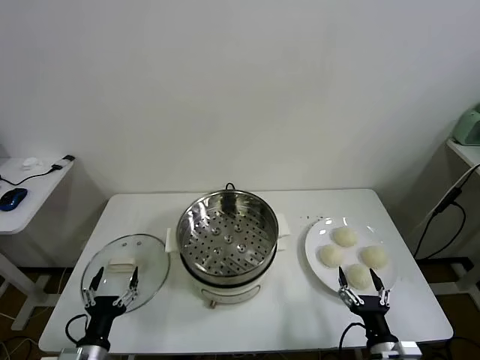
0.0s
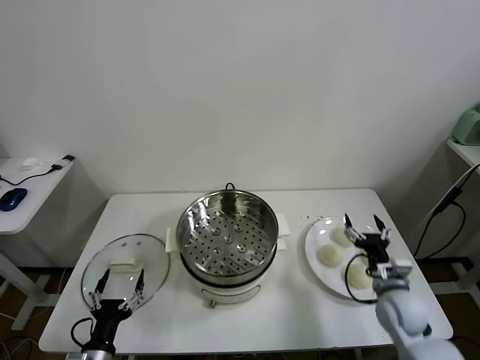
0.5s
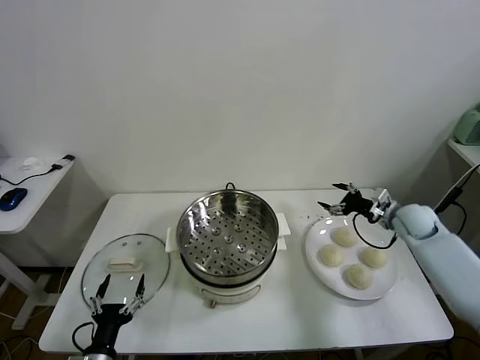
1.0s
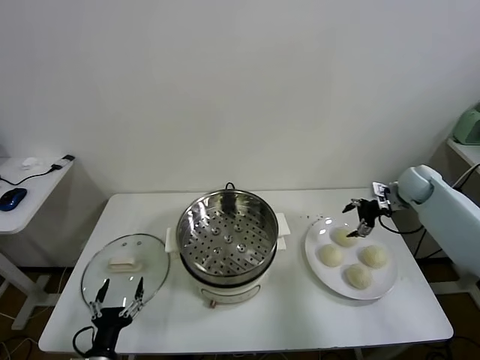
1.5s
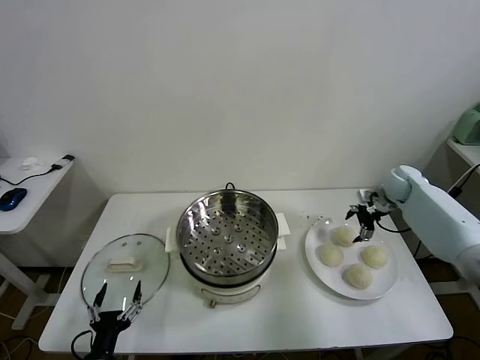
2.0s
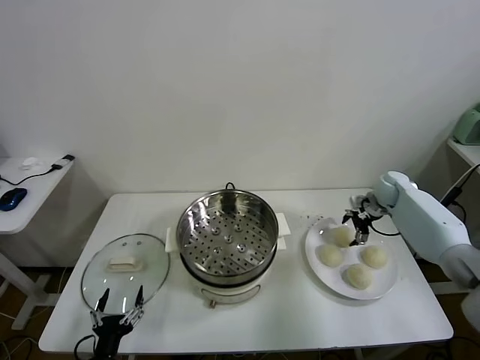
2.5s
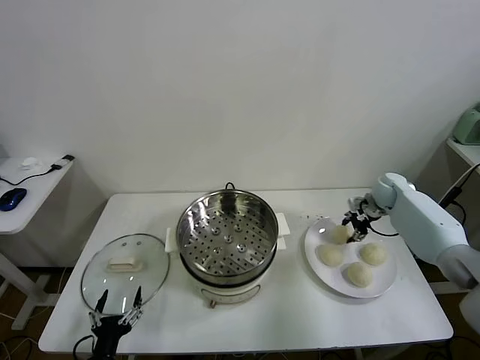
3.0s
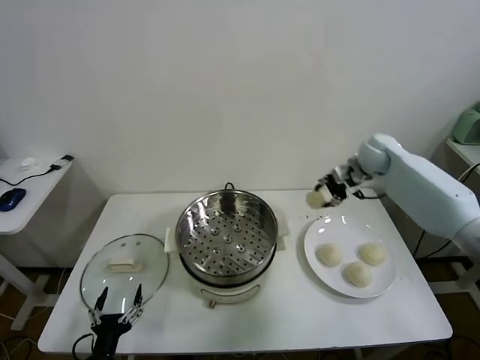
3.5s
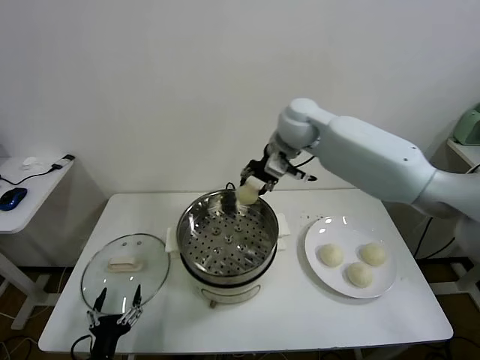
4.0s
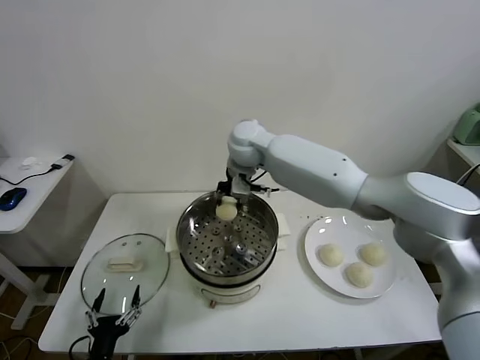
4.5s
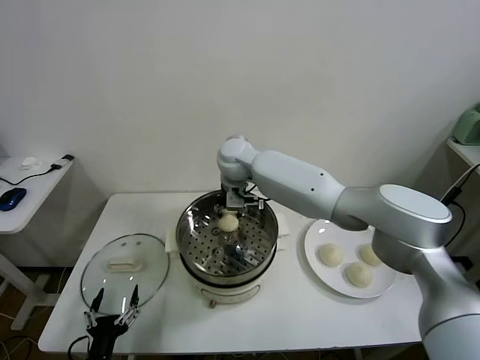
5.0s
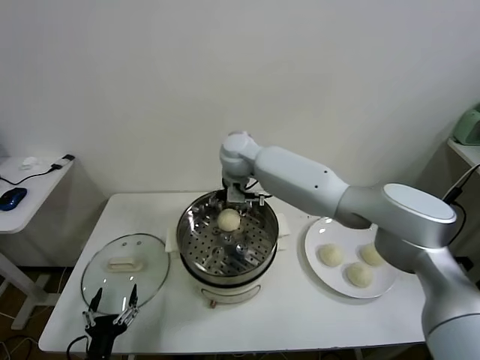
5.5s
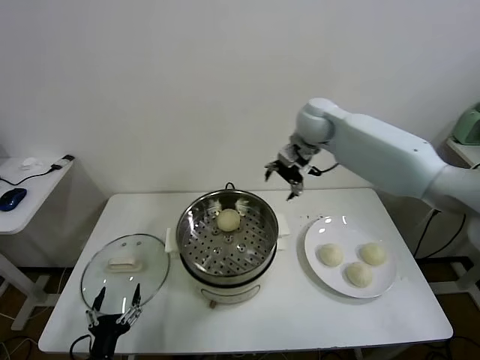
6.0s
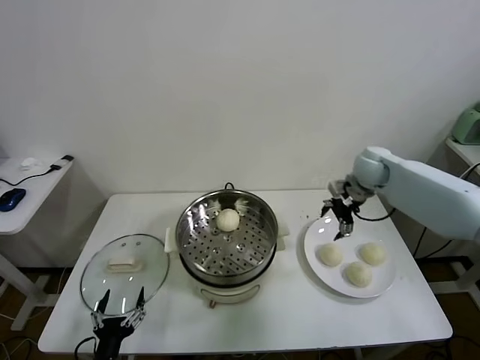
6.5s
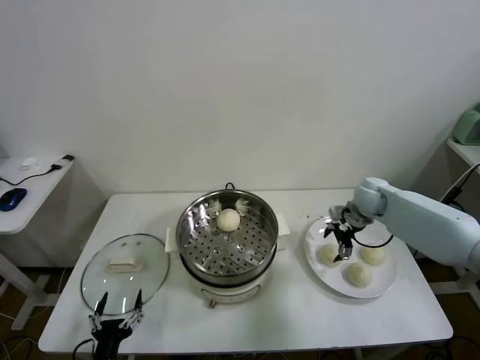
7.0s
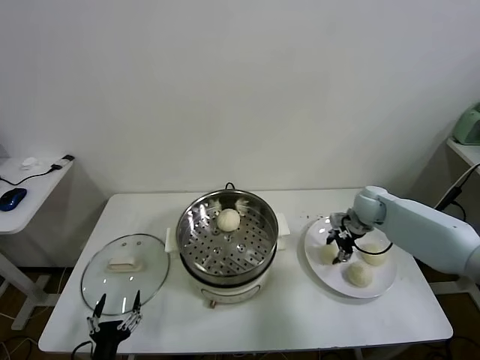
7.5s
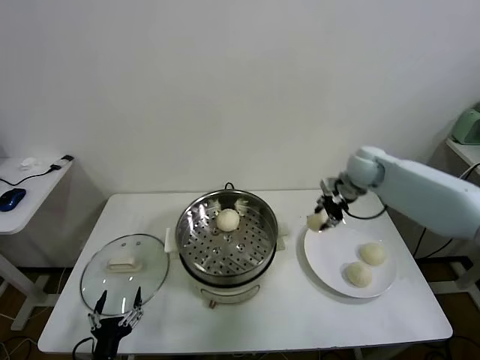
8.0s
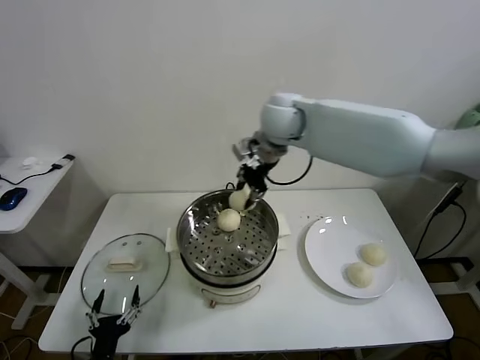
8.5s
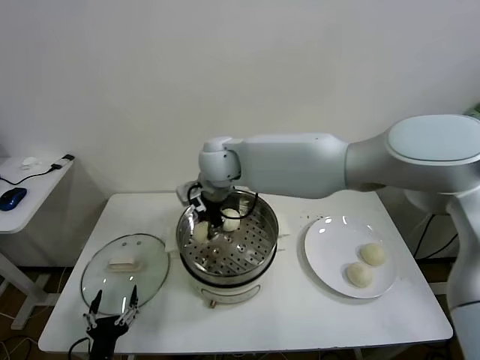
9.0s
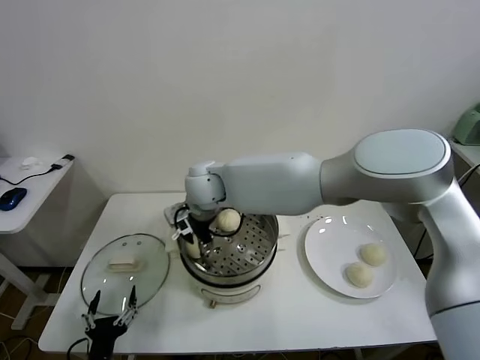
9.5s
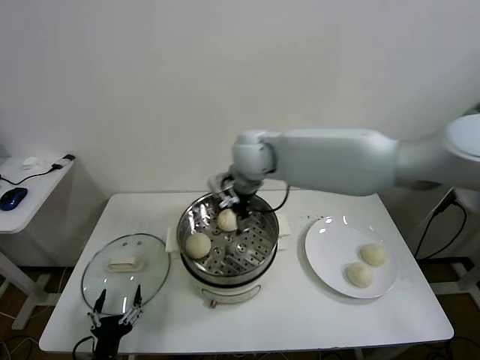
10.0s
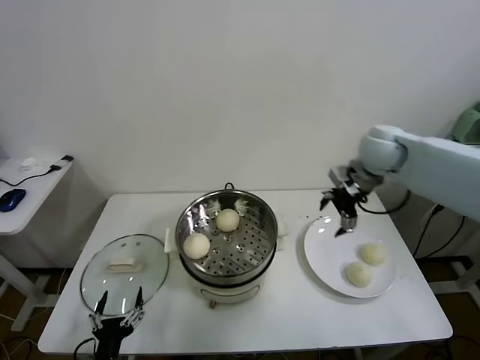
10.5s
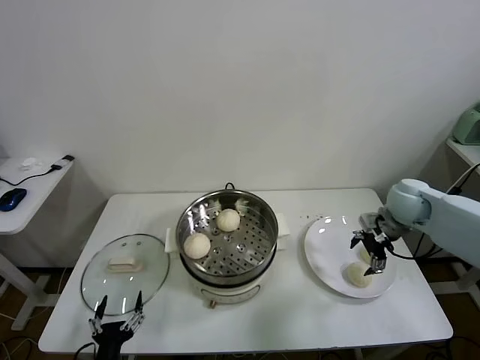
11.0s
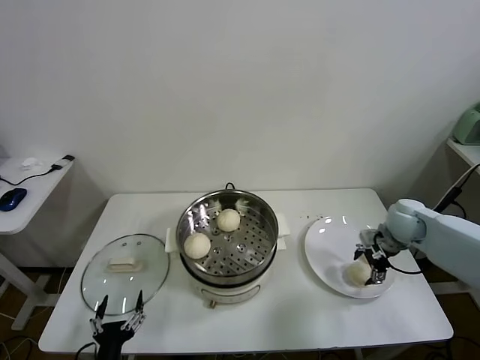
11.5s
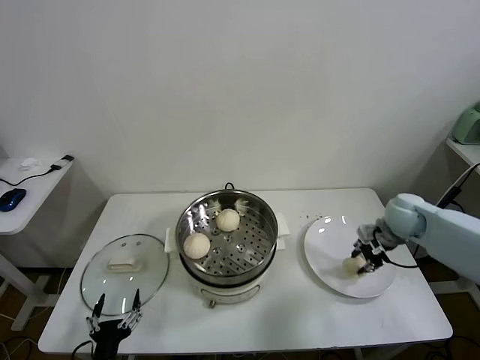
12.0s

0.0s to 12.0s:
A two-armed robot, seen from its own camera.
Task of the whole recording: take steamed baozi put them in steamer.
Step, 0.0s to 3.0s: Grasp the baozi in the plate with right gripper.
Step, 3.5s to 5.5s: Place the baozi on the steamer with right gripper.
Step, 6.0s to 7.5s: Grasp the baozi in the plate with right gripper.
Step, 8.0s to 9.5s: Place the baozi on the steamer with right gripper.
Step, 10.0s to 11.5s: Grasp the baozi in the plate with right gripper.
2.0s to 4.0s: The right gripper is displaced to the left and upward by about 40 cm, and closes its fingers.
4.0s to 6.0s: The right gripper heads to the right, covering approximately 10 cm, and opens.
6.0s to 8.0s: The right gripper shifts about 5 cm to the right, goes downward and returns, some 20 cm each way, and closes its fingers.
8.0s to 10.0s: The right gripper is displaced to the left by roughly 20 cm, and opens up.
10.0s to 12.0s: The right gripper shifts about 35 cm to the right and downward, and closes its fingers.

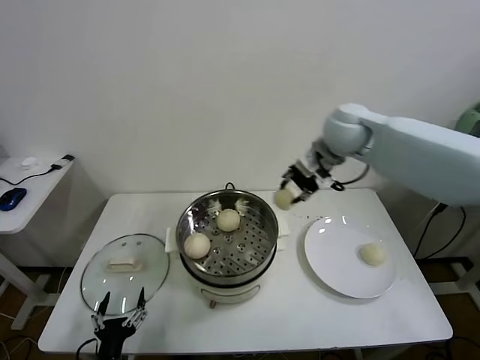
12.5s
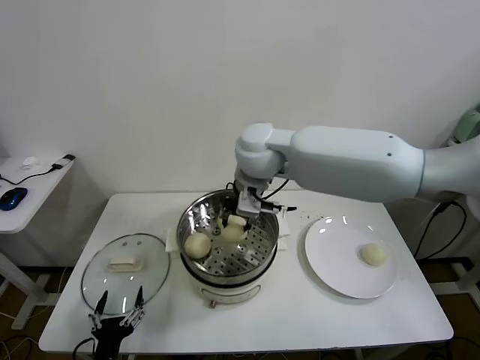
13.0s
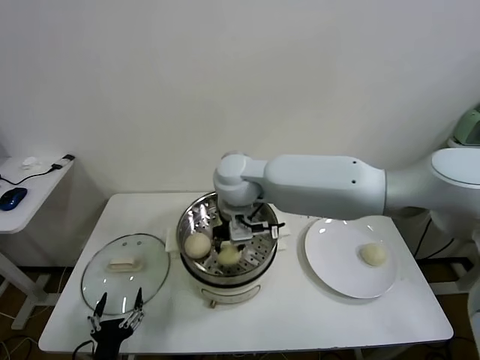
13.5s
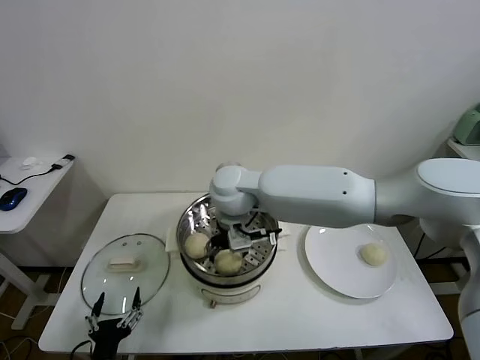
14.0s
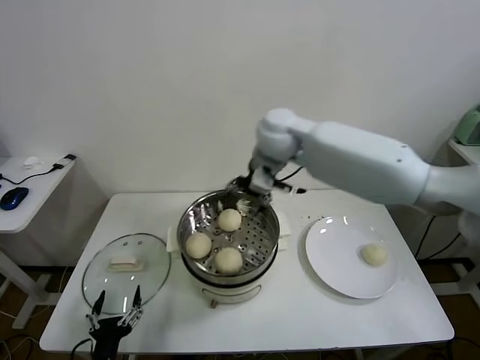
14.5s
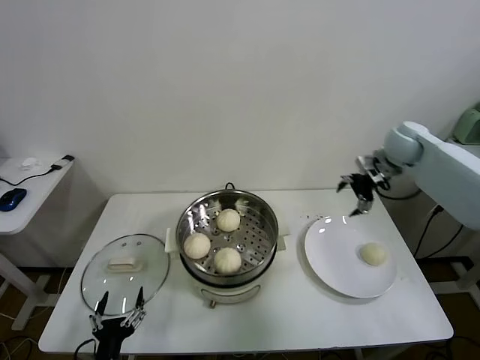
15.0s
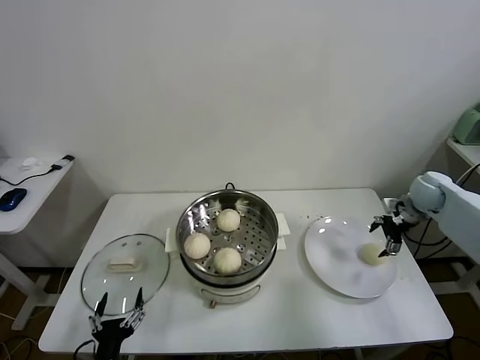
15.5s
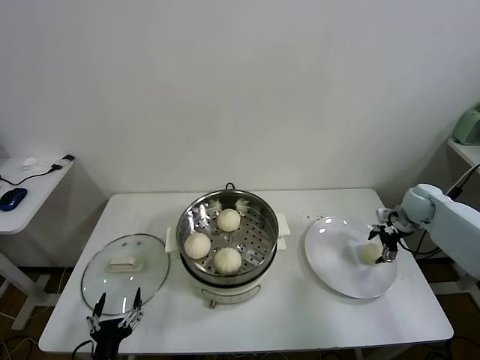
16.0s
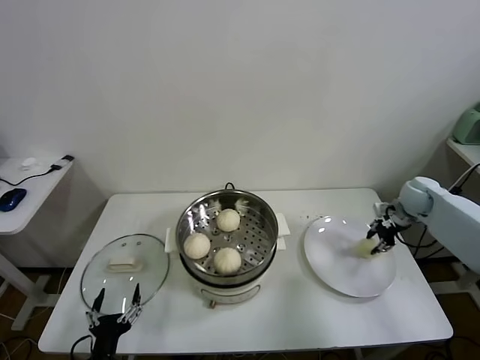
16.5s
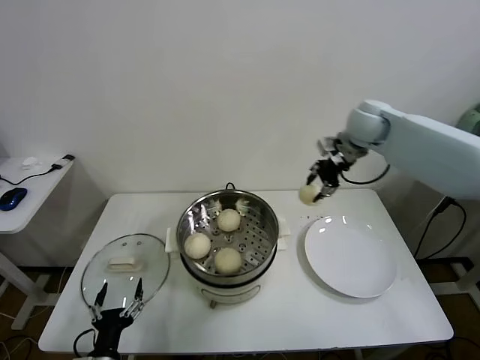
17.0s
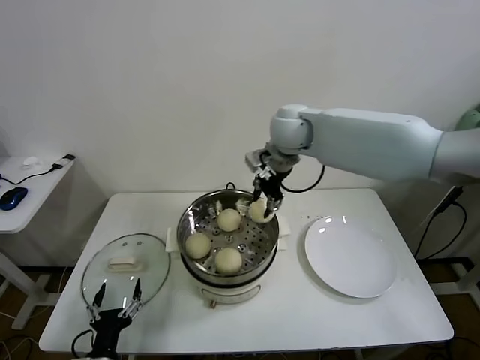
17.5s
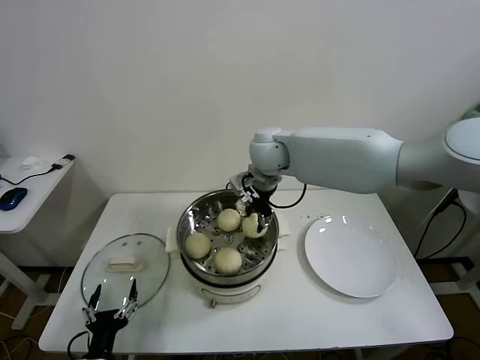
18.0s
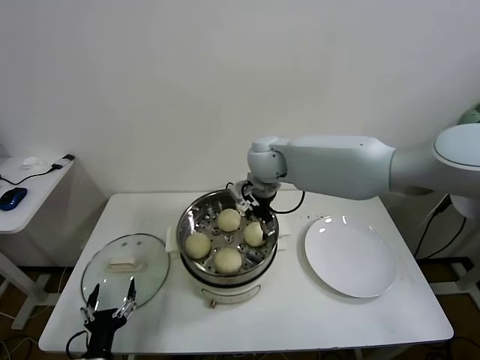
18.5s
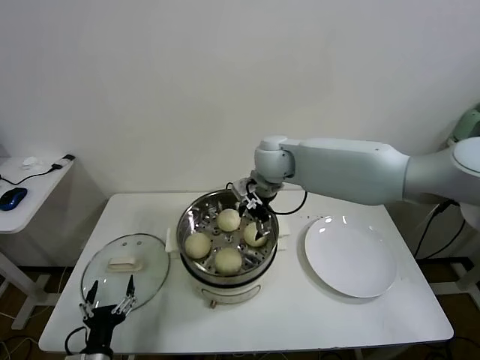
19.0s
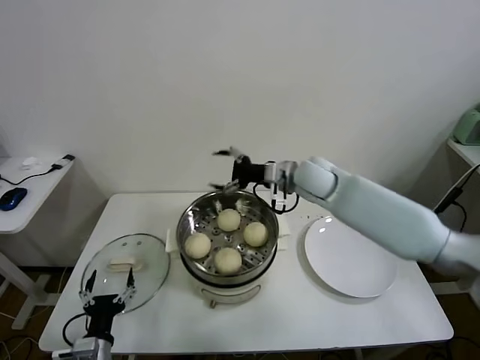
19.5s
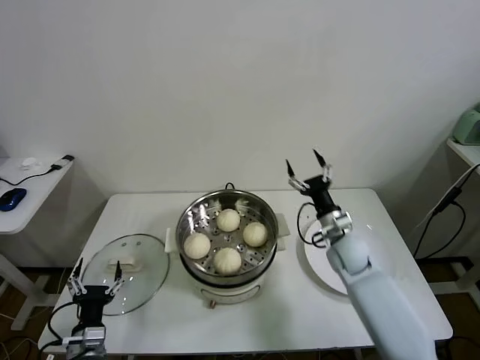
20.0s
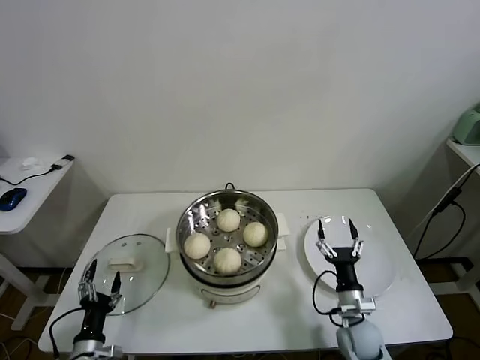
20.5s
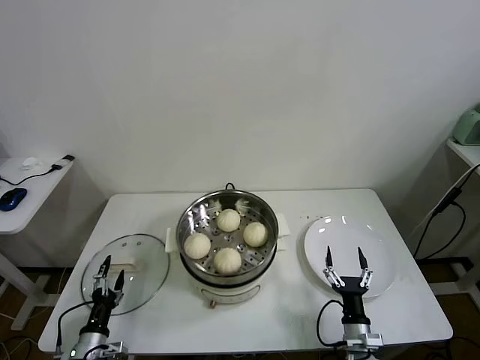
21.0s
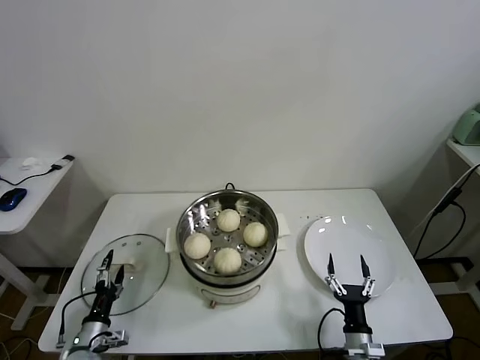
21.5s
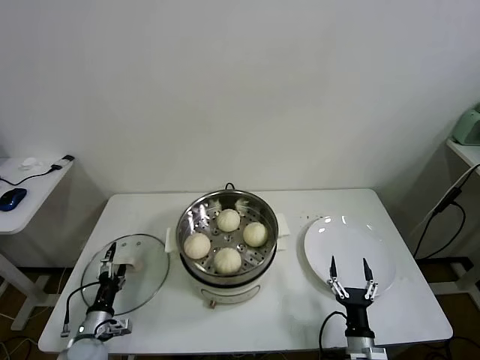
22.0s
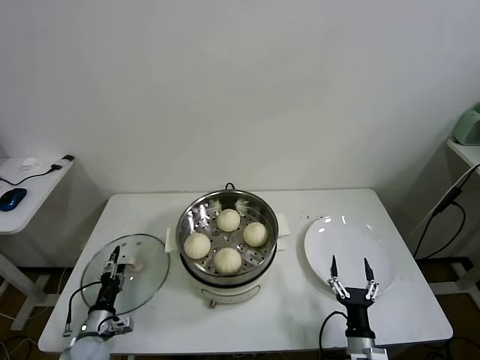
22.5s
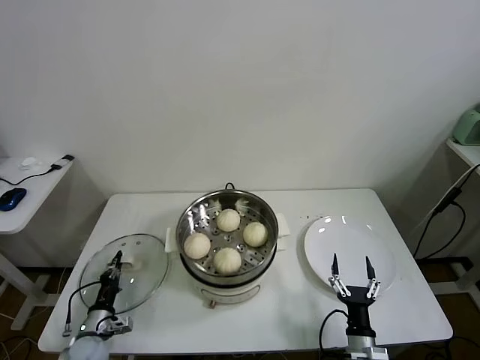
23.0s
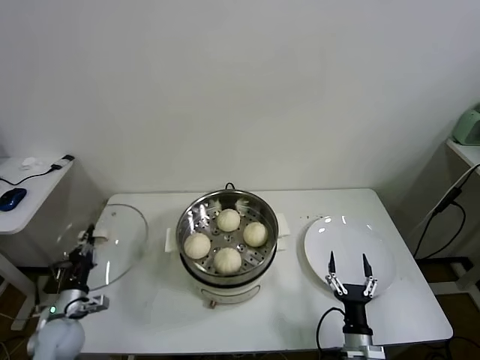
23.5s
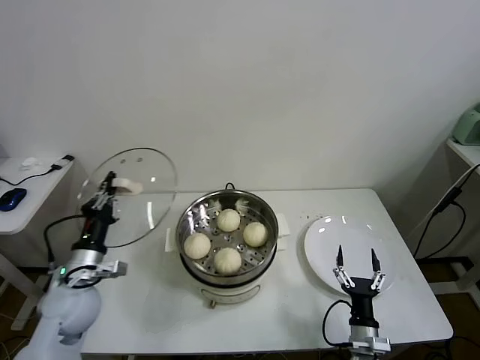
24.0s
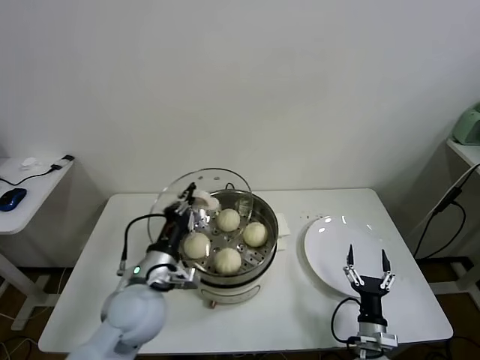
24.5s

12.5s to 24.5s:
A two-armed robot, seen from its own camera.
Task of the whole recording: take steamed baozi put them in steamer.
Step, 12.5s to 14.0s: Place the baozi on the steamer with right gripper.
Step, 14.5s to 16.0s: Grasp the baozi in the plate with right gripper.
Step, 16.5s to 18.5s: Place the baozi on the steamer with right gripper.
Step, 19.0s to 23.0s: Grasp the pot lid with left gripper.
12.5s to 14.5s: The right gripper heads to the left, covering roughly 10 cm, and opens its fingers.
14.5s to 16.5s: The right gripper travels to the right and downward by about 40 cm, and closes up.
16.5s to 18.5s: The right gripper heads to the left, covering approximately 40 cm, and opens up.
18.5s to 20.5s: The left gripper moves to the left and downward, some 10 cm. Meanwhile the right gripper goes approximately 50 cm downward, backward and to the right.
20.5s to 22.5s: The right gripper is displaced backward by about 10 cm, while the left gripper shifts about 10 cm forward.
22.5s to 24.5s: The left gripper goes roughly 30 cm upward and to the right, and closes up.

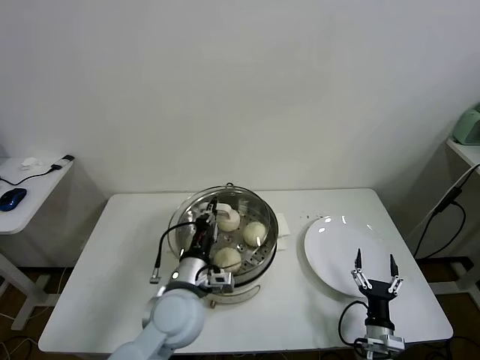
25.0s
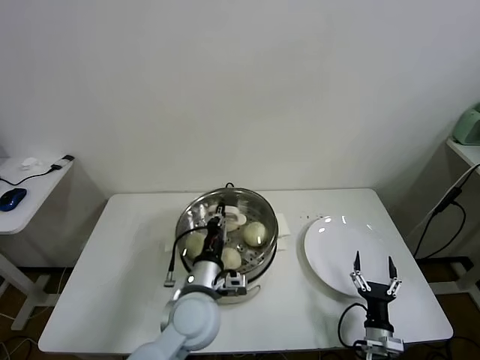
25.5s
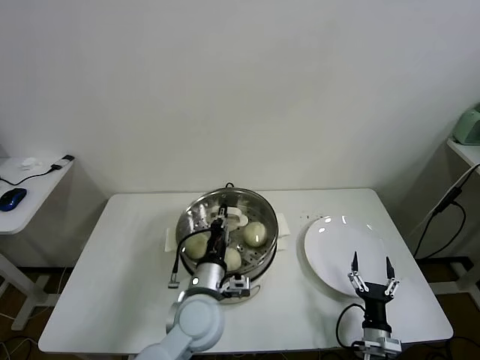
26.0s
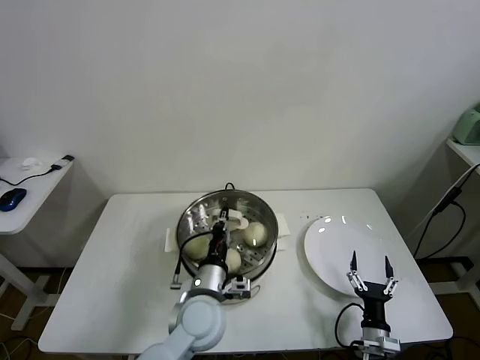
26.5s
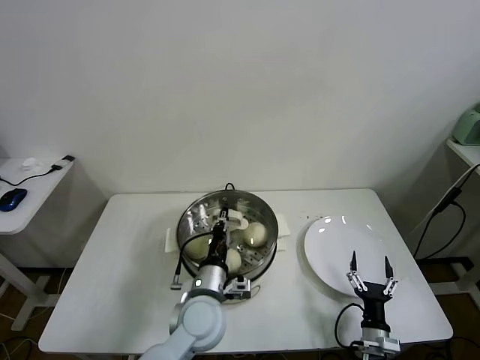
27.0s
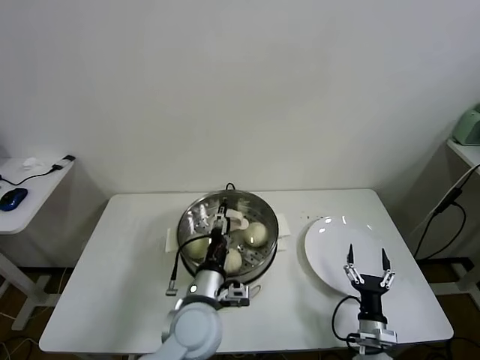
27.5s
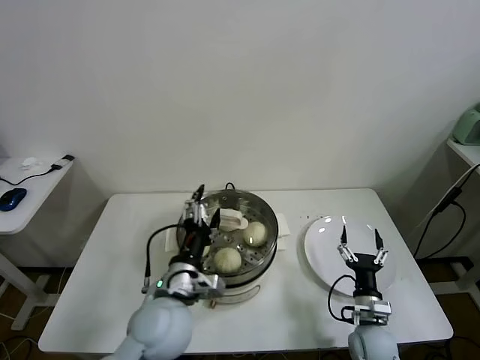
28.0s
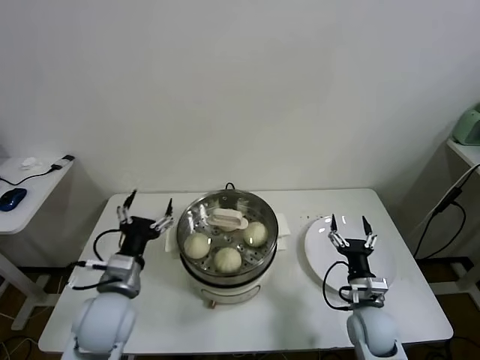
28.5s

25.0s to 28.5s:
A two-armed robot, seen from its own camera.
Task of the whole recording: take steamed baozi put them in steamer.
Step, 25.0s to 27.5s: Place the pot lid on the steamer with left gripper.
25.0s to 27.0s: The left gripper changes place by about 5 cm.
27.0s to 28.5s: The right gripper shifts some 15 cm upward and forward. Meanwhile the left gripper shifts roughly 15 cm to the left and upward, and opens up.
